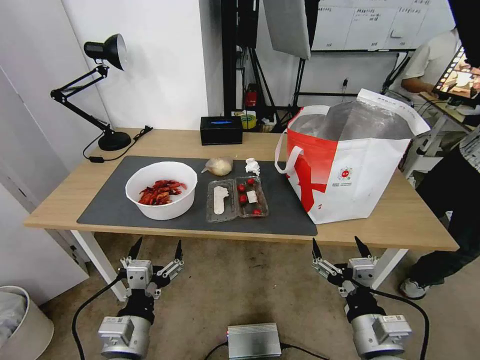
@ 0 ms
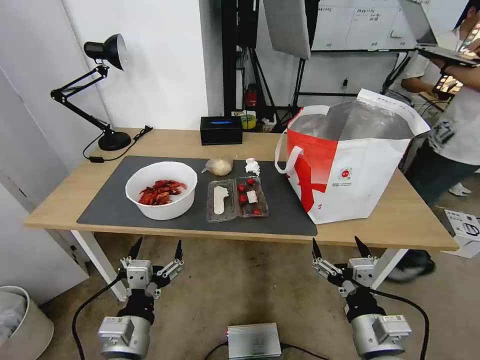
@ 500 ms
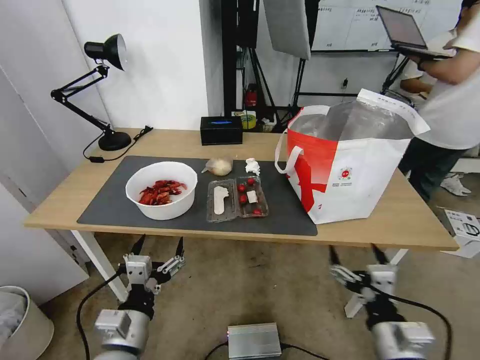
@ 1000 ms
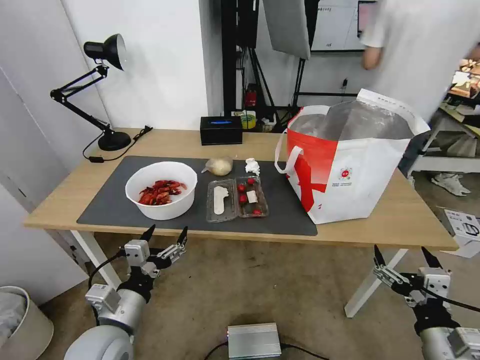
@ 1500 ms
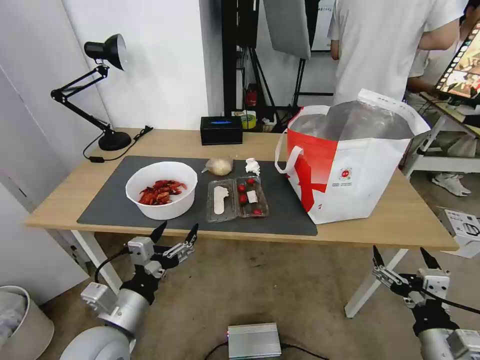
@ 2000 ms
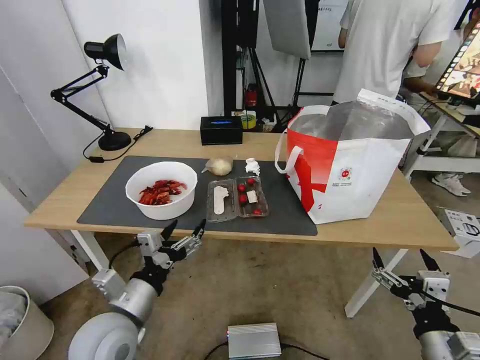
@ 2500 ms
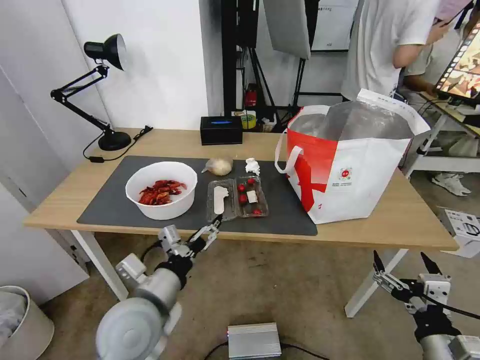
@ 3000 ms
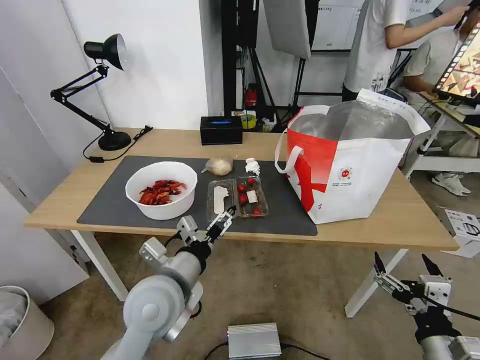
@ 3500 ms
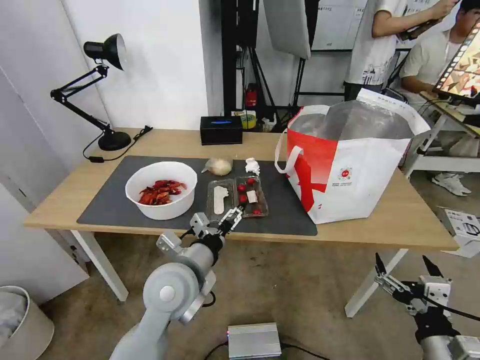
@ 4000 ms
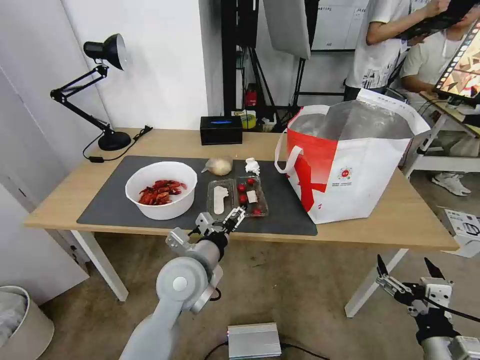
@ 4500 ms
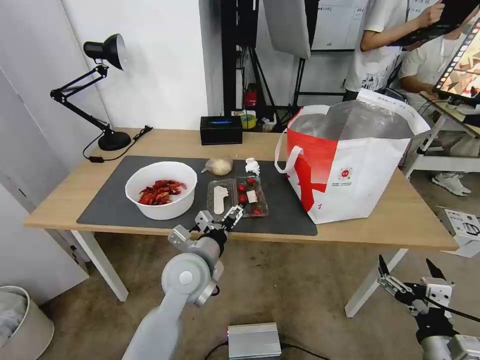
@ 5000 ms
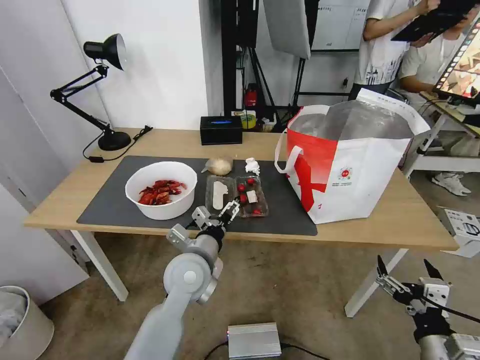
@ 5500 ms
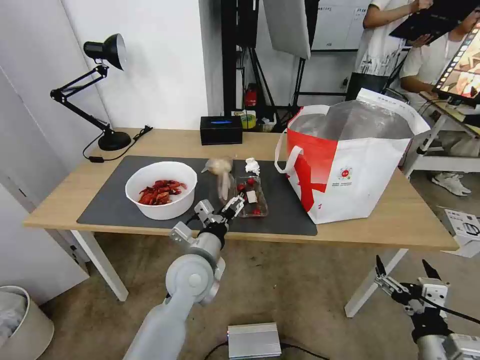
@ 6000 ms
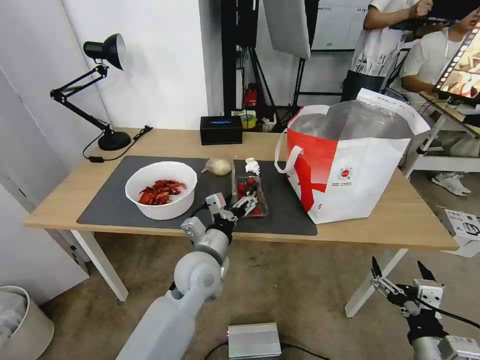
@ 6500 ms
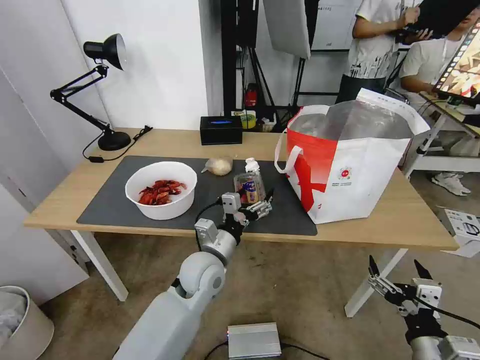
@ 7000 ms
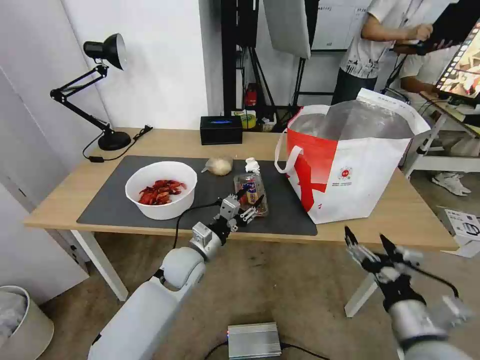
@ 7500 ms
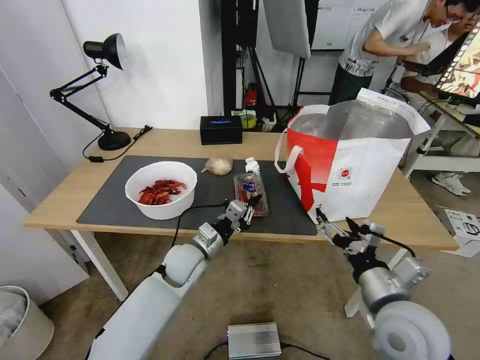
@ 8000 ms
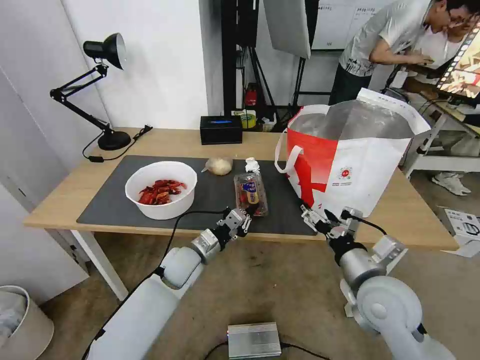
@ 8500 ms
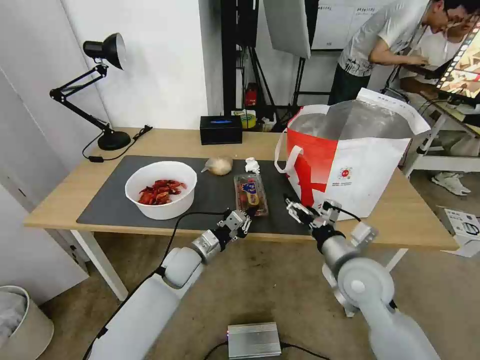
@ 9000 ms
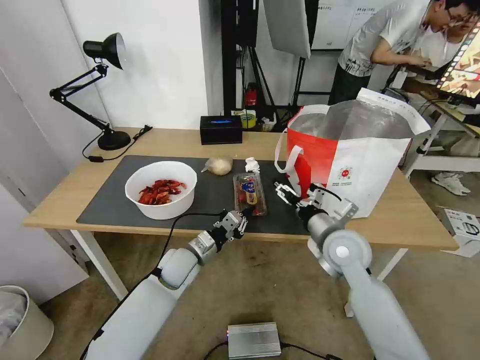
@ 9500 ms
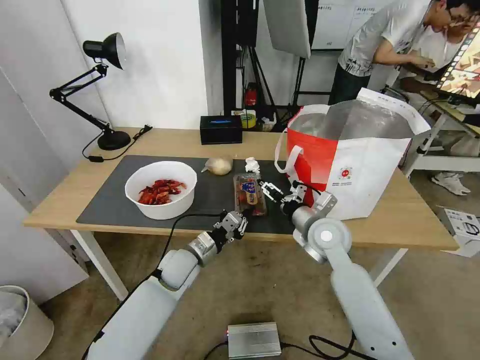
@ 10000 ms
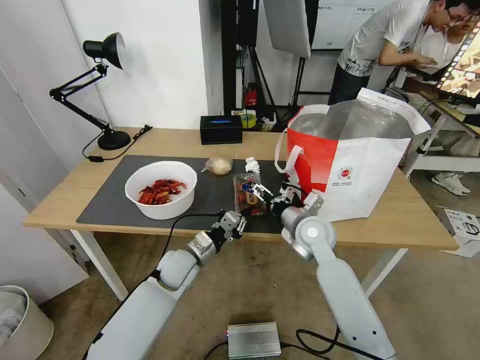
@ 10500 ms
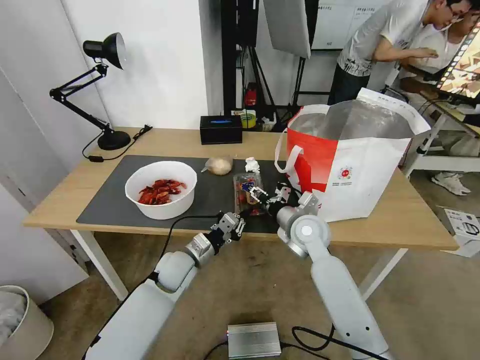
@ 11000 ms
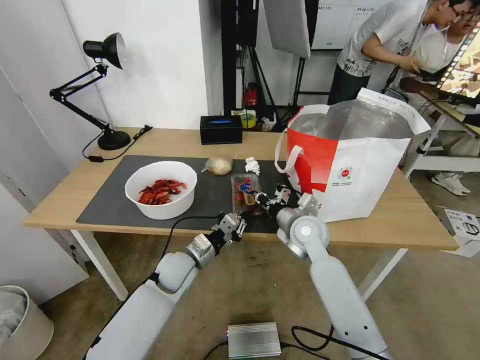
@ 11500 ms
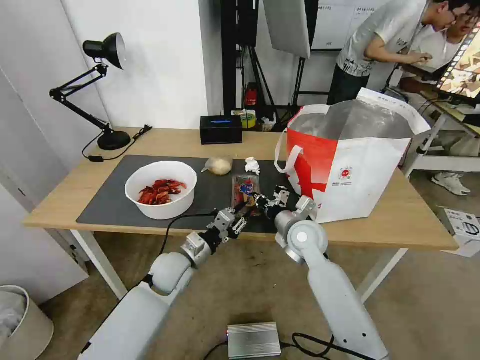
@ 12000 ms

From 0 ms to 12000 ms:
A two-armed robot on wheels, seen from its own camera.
Task of the whole recording: Pick up the trash from the table and place it into the takeout bag.
From 2000 ms to 4000 ms: The left gripper moves to the right and forward, roughly 15 cm.
From 4000 ms to 6000 ms: The left gripper shifts by roughly 5 cm.
From 6000 ms to 8000 ms: The left gripper heads forward and downward, covering approximately 10 cm, and closes its fingers. Meanwhile the right gripper goes some 15 cm forward, to the left and upward.
From 8000 ms to 10000 ms: The right gripper travels forward by some 20 cm.
From 10000 ms to 12000 ms: The right gripper changes place by some 5 cm, and closes up.

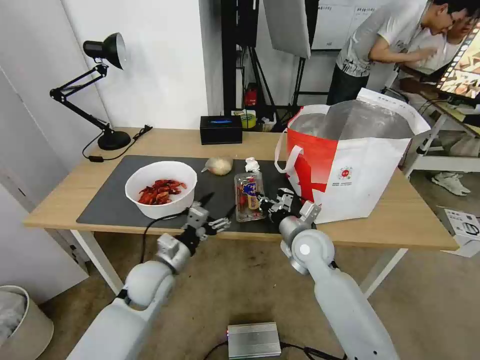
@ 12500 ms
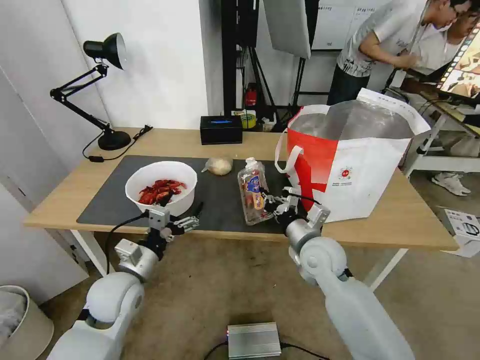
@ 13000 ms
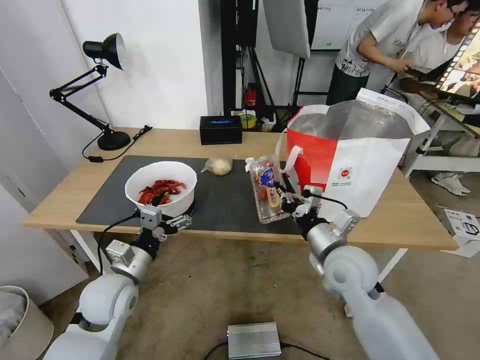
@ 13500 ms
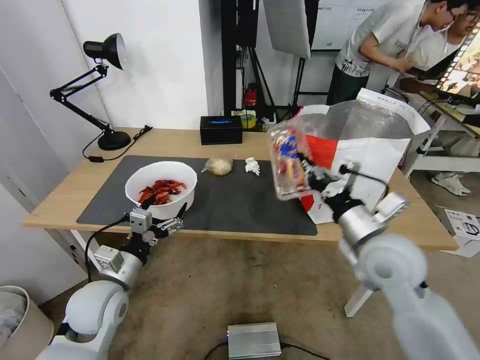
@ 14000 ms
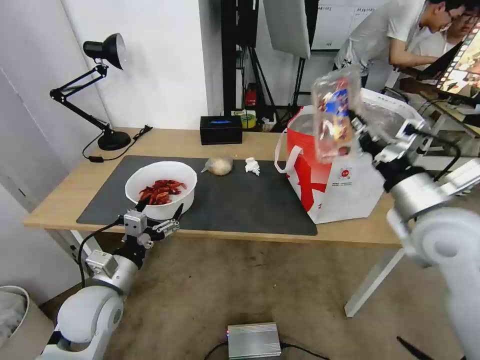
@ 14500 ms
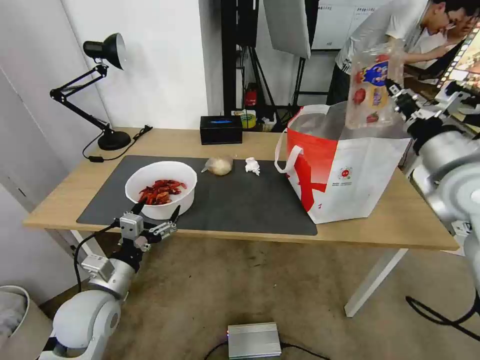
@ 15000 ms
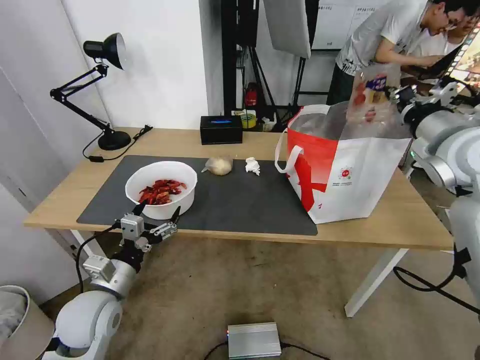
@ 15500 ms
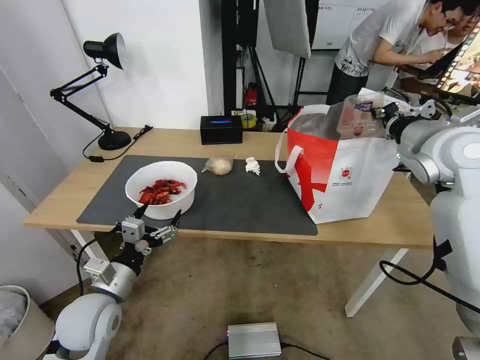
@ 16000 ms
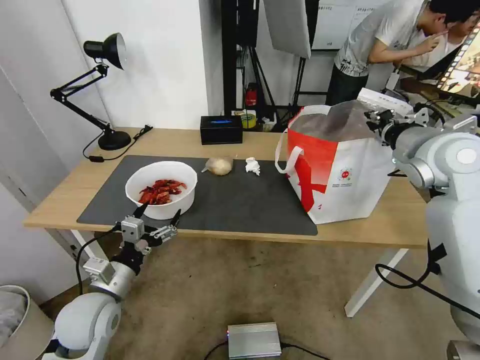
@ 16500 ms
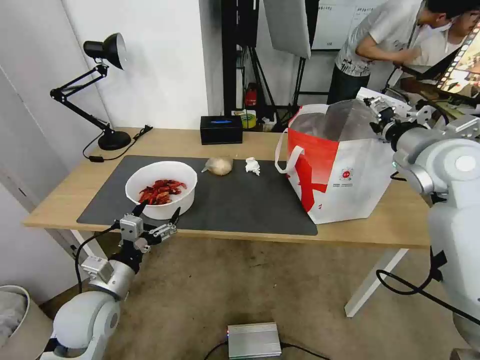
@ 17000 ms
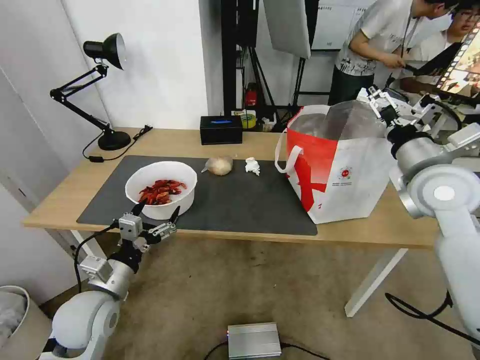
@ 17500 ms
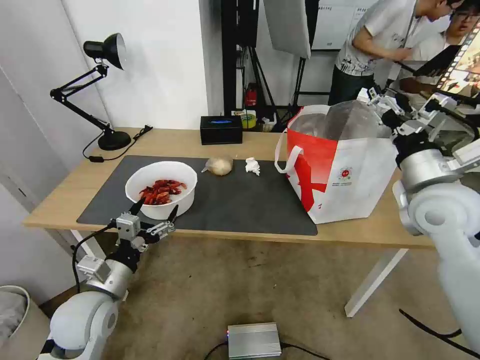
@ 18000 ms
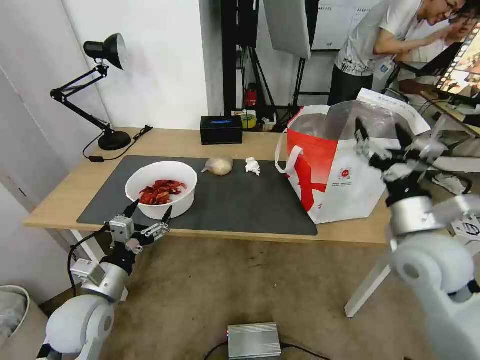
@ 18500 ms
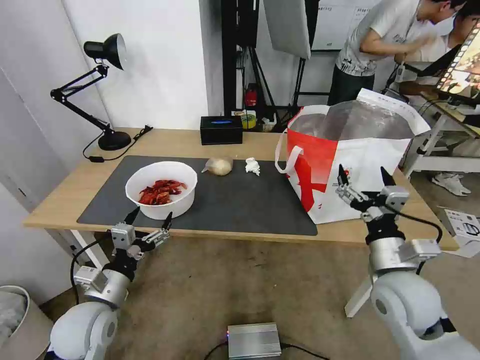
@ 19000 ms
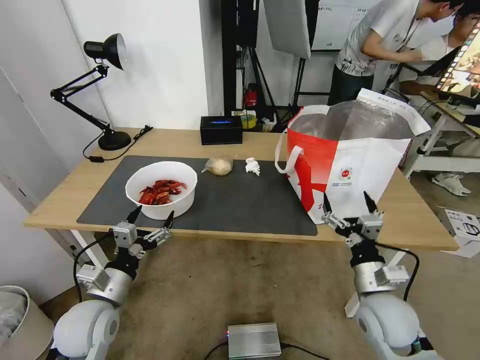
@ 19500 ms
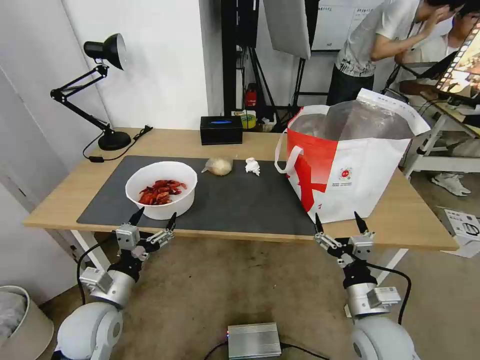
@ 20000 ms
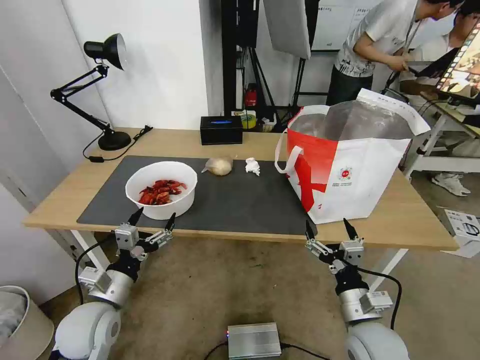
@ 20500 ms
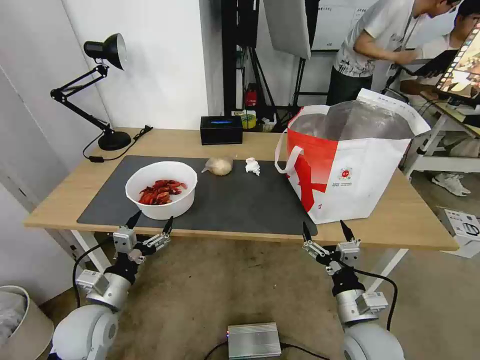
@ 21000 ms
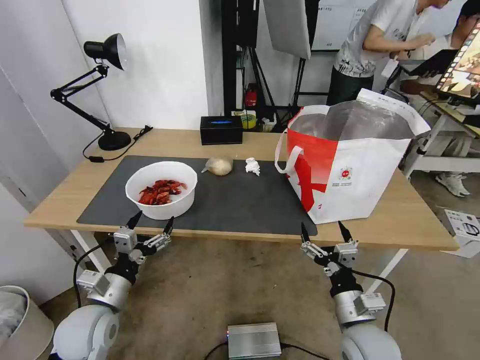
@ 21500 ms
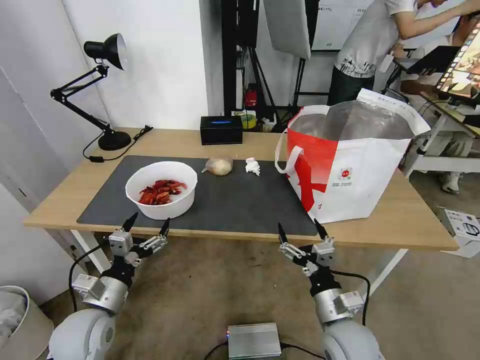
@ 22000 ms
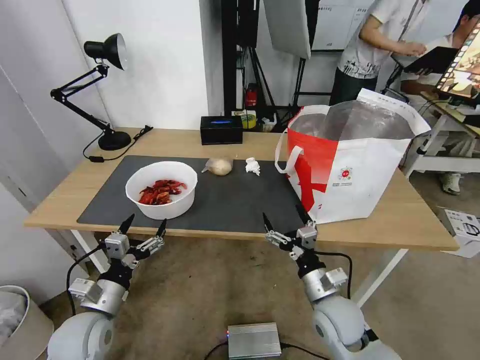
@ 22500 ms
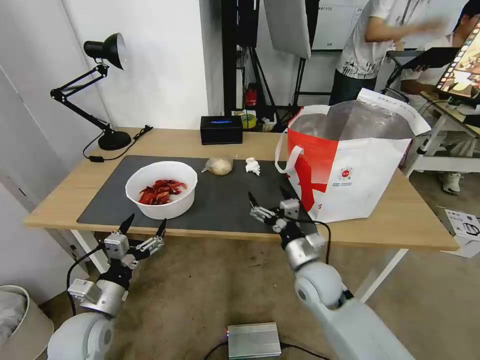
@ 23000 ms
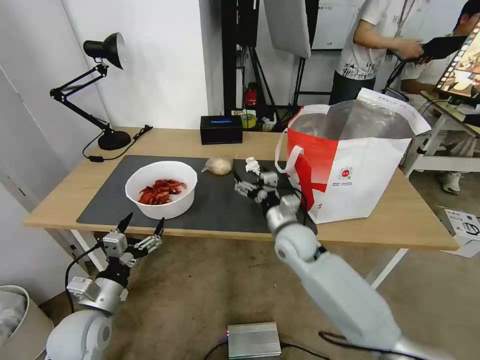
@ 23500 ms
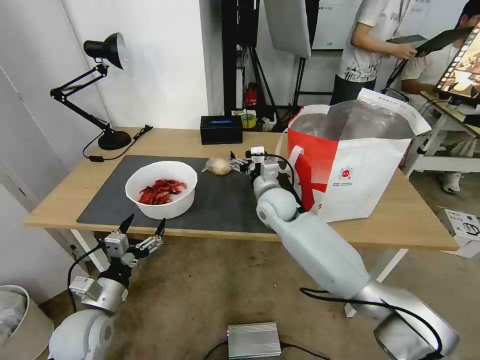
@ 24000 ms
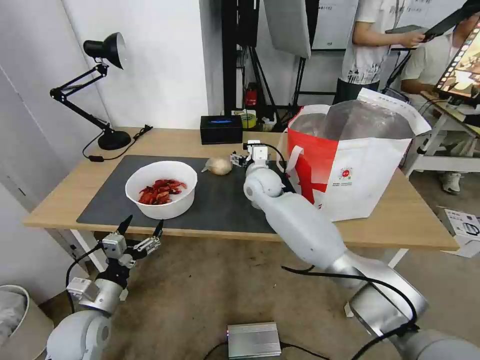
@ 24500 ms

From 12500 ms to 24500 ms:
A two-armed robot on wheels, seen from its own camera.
Task of the whole recording: Pick up the trash from the table and place it into the takeout bag.
From 12500 ms to 14500 ms: The left gripper is displaced to the left and backward by roughly 10 cm, while the right gripper goes some 25 cm upward, to the right and backward.
From 14500 ms to 16500 ms: The right gripper goes some 15 cm forward and upward.
From 16500 ms to 18500 ms: The right gripper goes about 15 cm backward and downward, and opens up.
From 18500 ms to 20500 ms: The right gripper is displaced downward and backward by roughly 20 cm.
From 20500 ms to 22500 ms: The right gripper shifts roughly 5 cm forward.
From 22500 ms to 24500 ms: The right gripper heads forward, to the left and upward, covering approximately 35 cm.

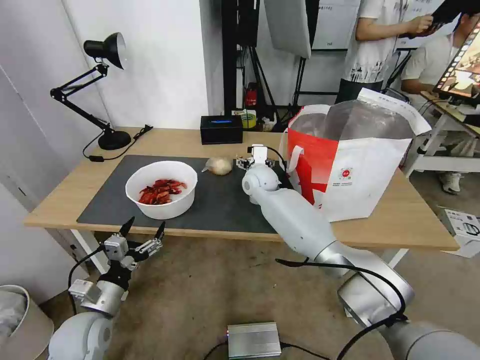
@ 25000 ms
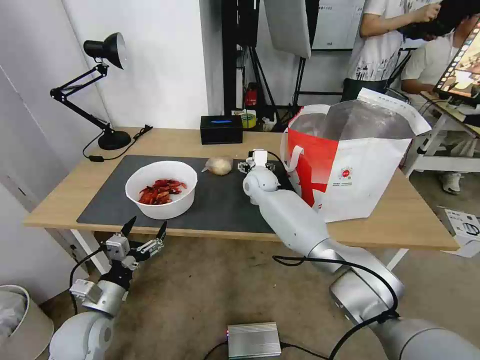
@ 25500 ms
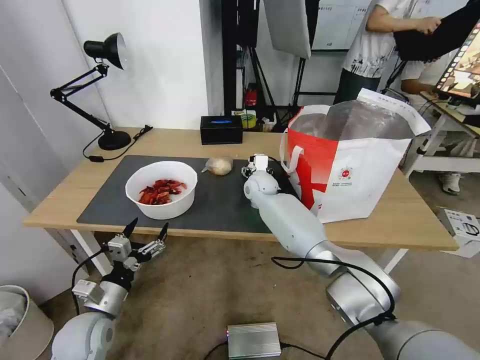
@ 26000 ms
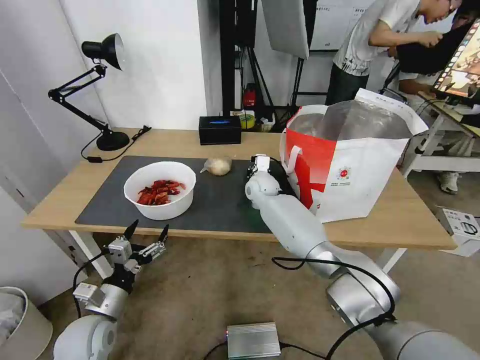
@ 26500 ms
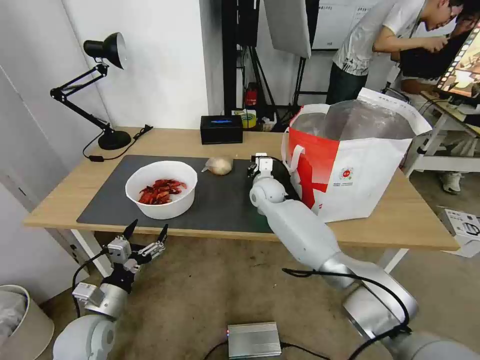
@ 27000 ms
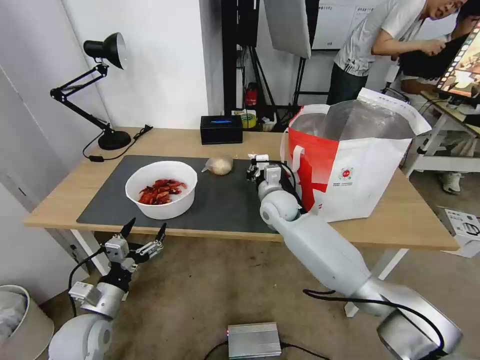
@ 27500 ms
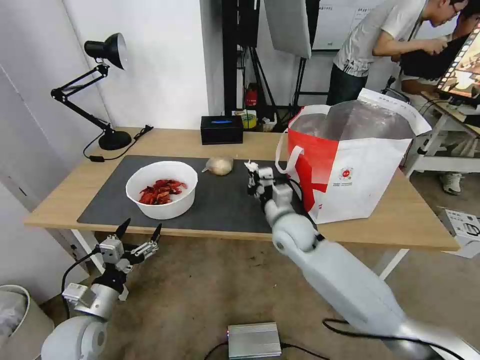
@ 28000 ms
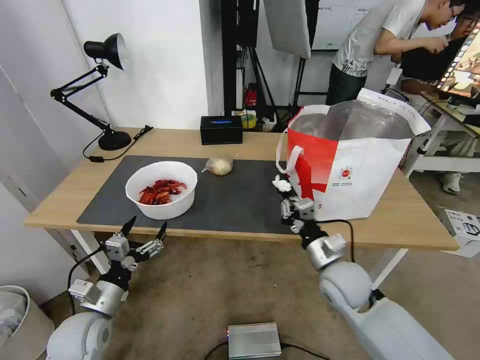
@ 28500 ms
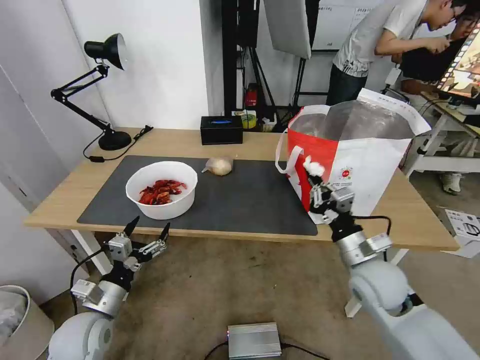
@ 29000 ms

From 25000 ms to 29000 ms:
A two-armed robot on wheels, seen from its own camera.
Task of the whole recording: Pick up the trash from the table and place it into the takeout bag.
From 25000 ms to 27000 ms: The right gripper travels downward by some 5 cm, and closes up.
From 27000 ms to 29000 ms: The right gripper shifts approximately 35 cm backward and to the right.
